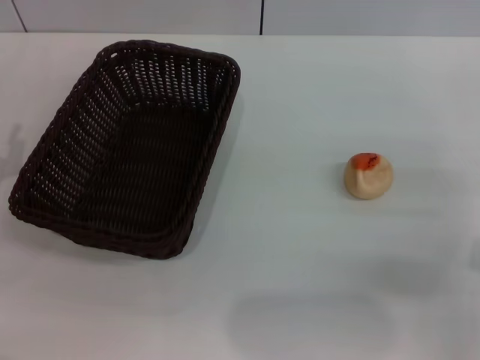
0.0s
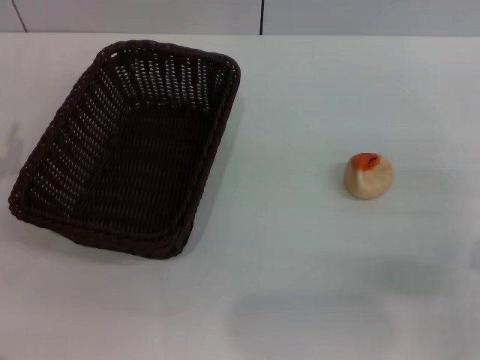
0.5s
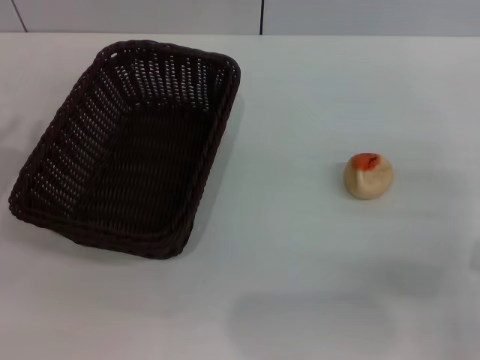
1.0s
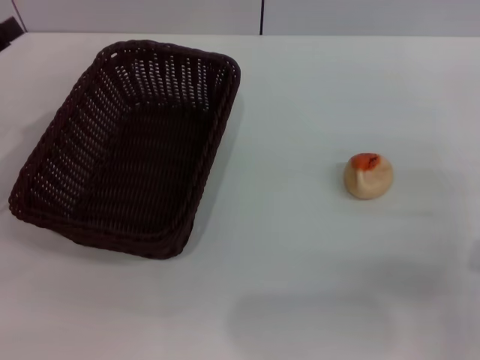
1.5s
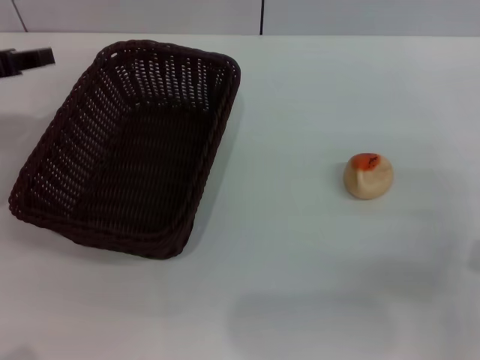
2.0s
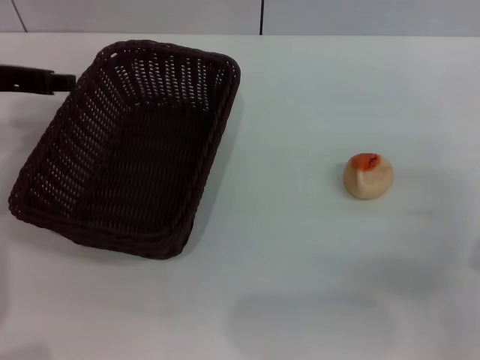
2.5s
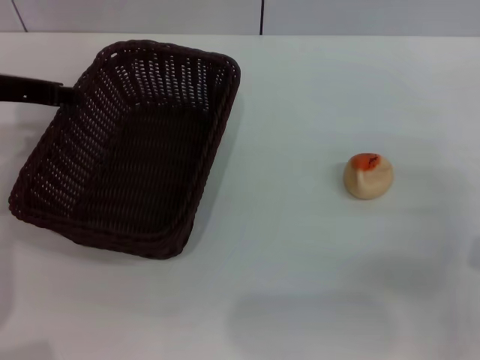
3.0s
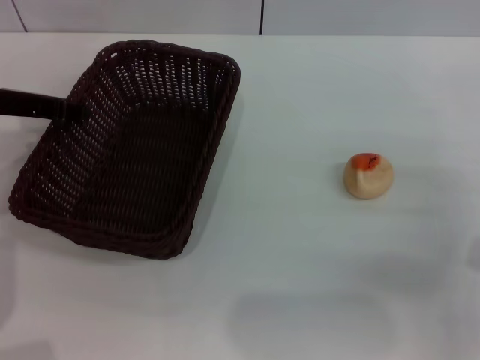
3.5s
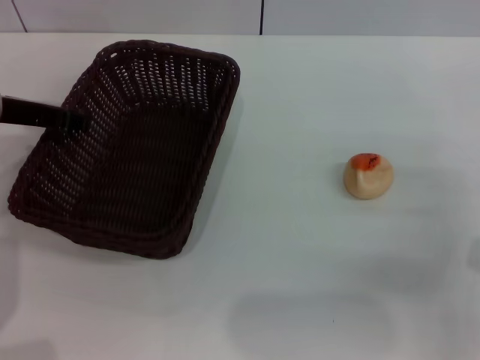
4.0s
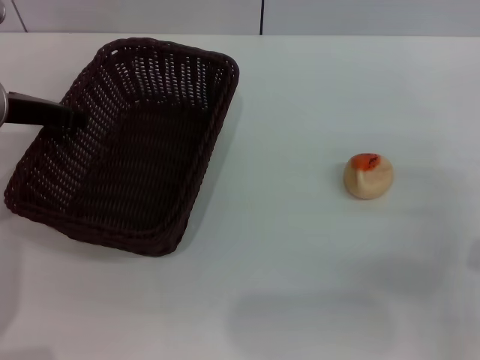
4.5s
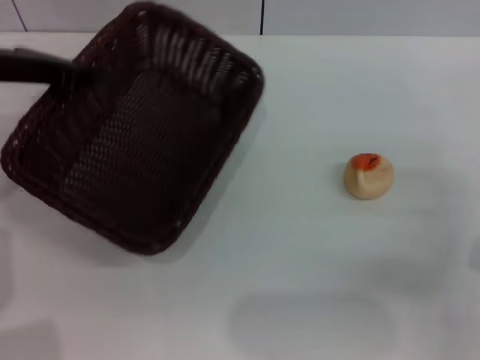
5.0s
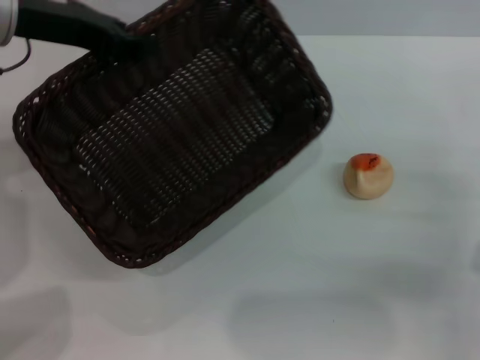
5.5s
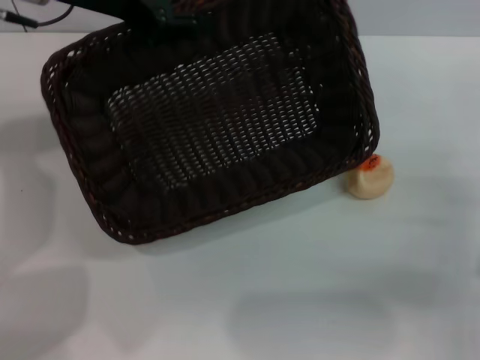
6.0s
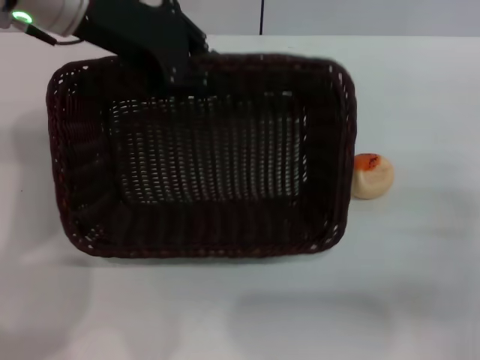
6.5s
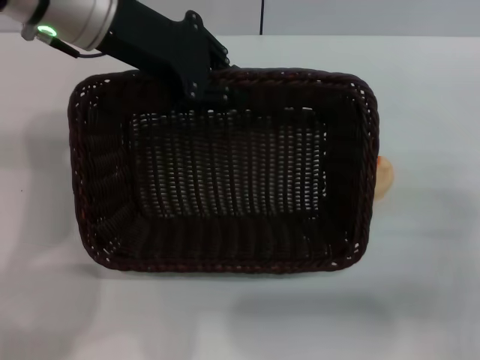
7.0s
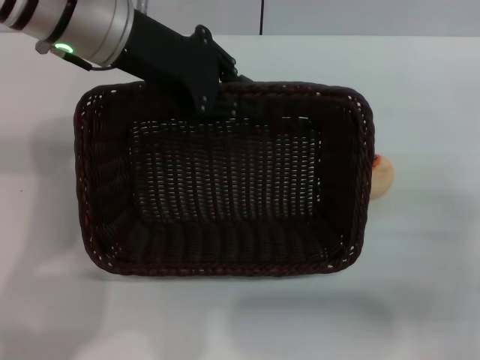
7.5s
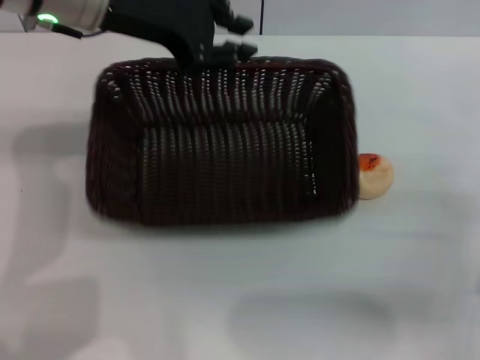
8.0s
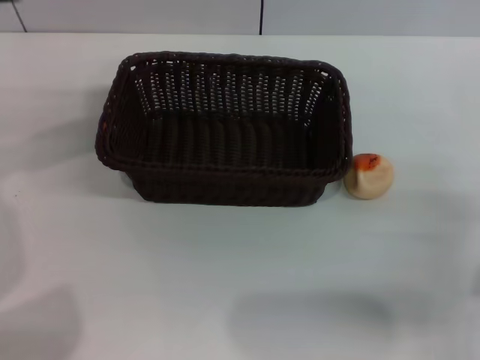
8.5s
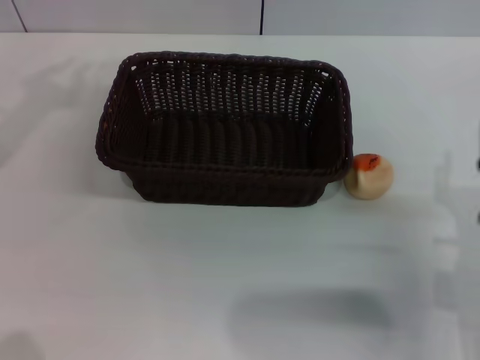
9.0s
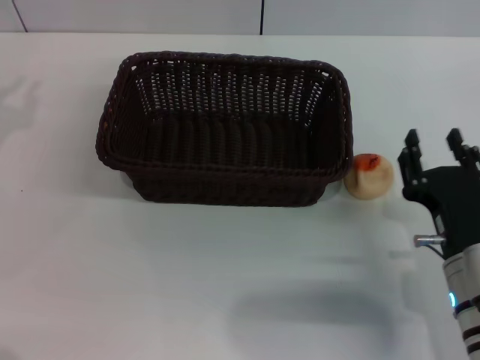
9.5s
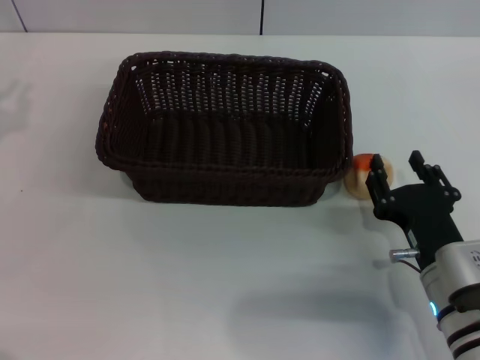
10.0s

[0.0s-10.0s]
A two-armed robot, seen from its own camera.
Step, 0.0s to 8.0s: Move the basket to the center of view with the left gripper.
0.0s to 2.0s: The left gripper shifts about 15 cm upward and forward.
2.0s to 4.0s: The left gripper goes some 5 cm to the right, and closes.
4.0s to 6.0s: The left gripper travels upward and to the right by some 15 cm, and closes its fingers.
6.0s to 8.0s: The left gripper opens up.
8.0s to 10.0s: The left gripper travels to the left and backward by about 25 cm, and closes up; the right gripper heads to the left, covering about 10 cm.

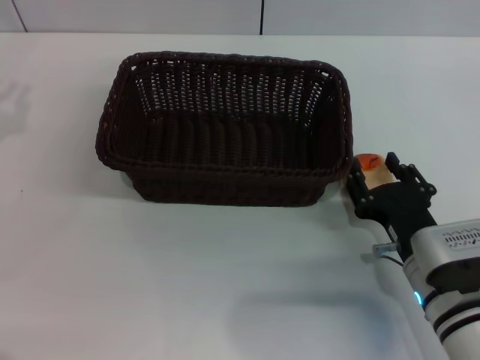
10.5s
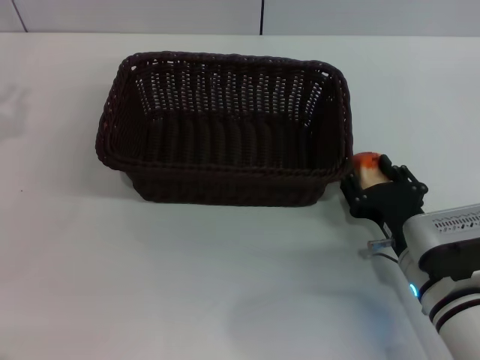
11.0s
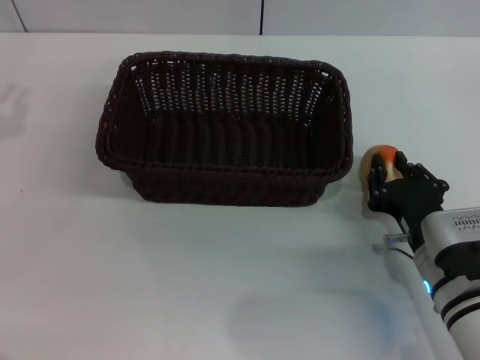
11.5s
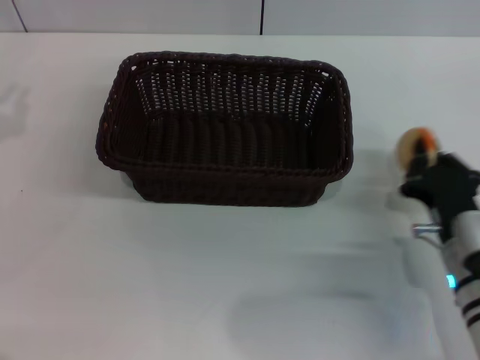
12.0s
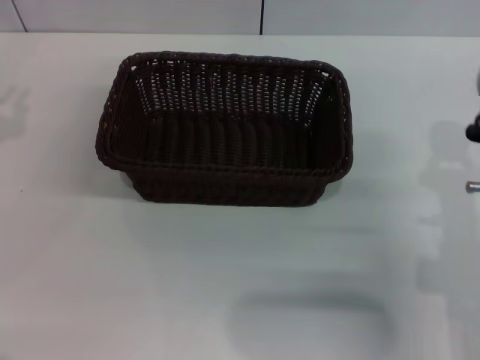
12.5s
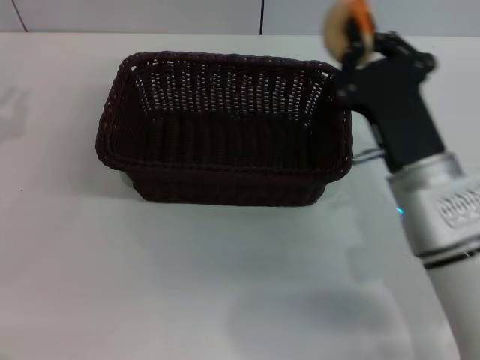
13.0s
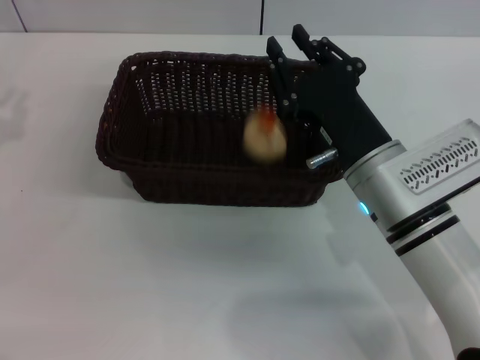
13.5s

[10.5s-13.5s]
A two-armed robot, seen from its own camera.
Step, 12.5s to 13.5s: Place the egg yolk pastry into the basket with the right gripper.
10.5s to 12.0s: The right gripper closes.
12.0s to 13.5s: The right gripper moves to the left and upward, about 10 cm.
